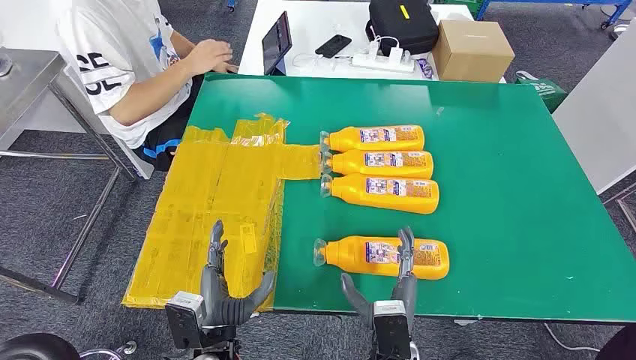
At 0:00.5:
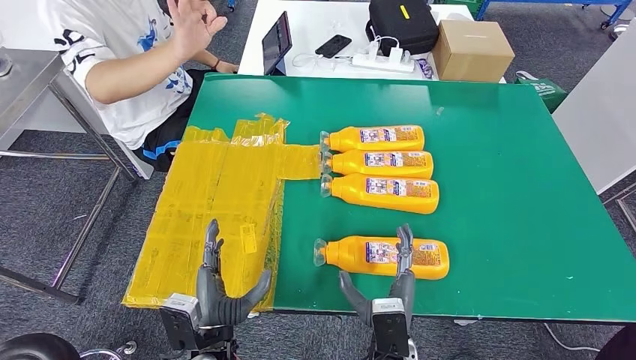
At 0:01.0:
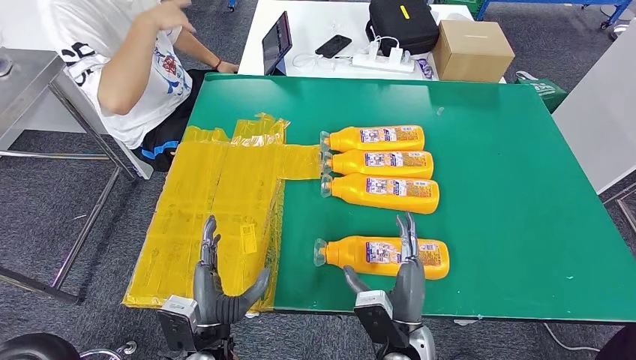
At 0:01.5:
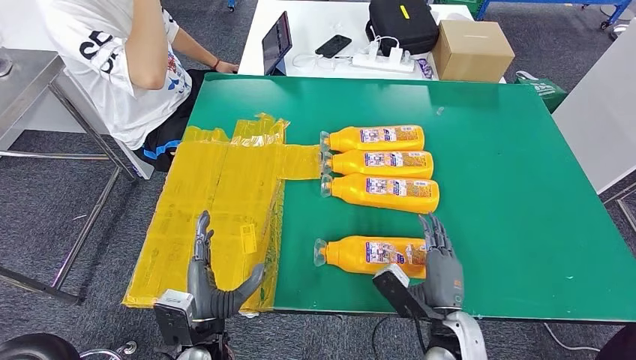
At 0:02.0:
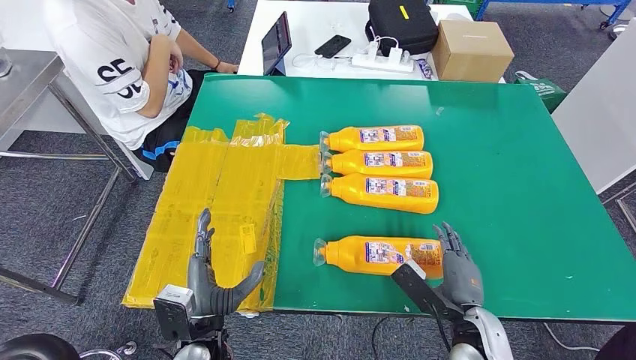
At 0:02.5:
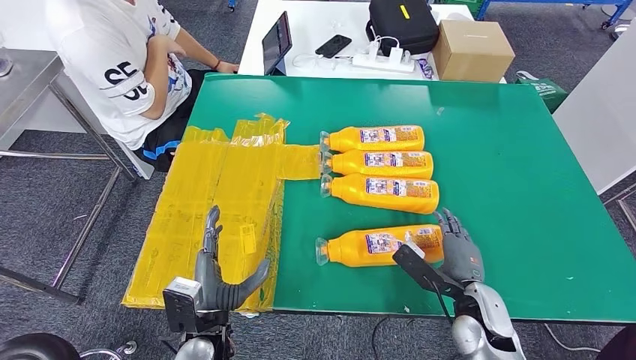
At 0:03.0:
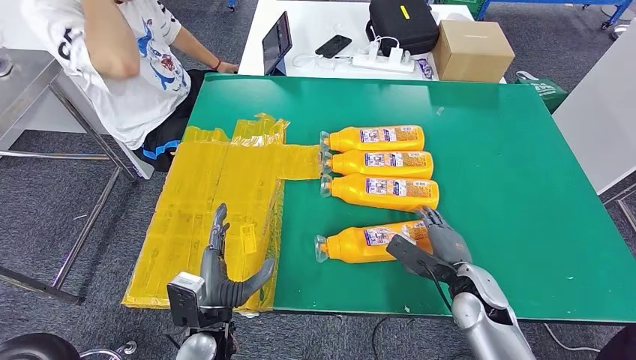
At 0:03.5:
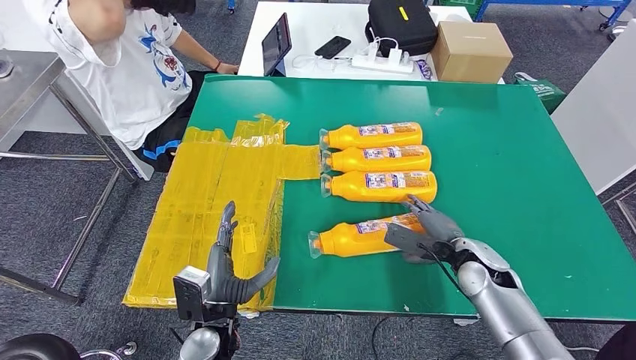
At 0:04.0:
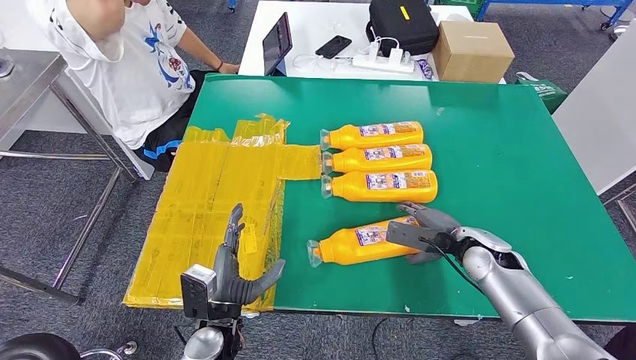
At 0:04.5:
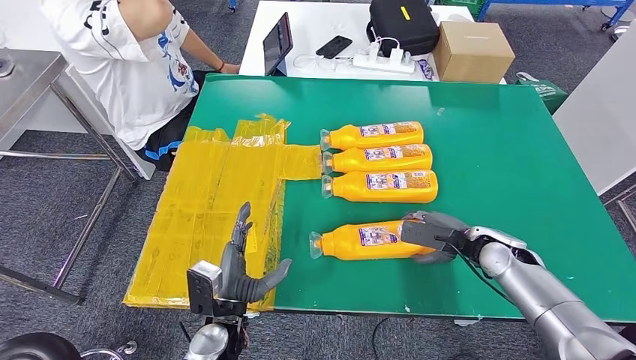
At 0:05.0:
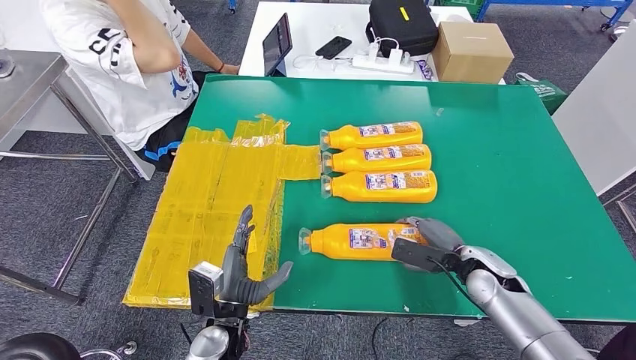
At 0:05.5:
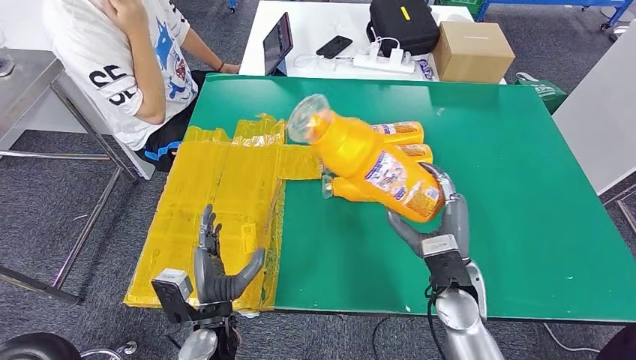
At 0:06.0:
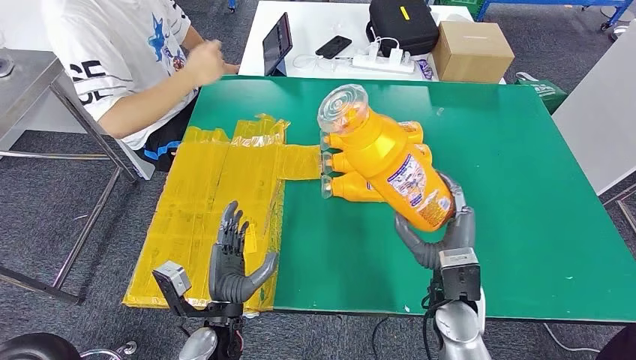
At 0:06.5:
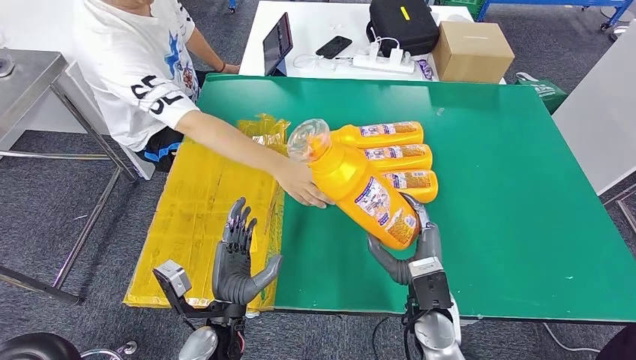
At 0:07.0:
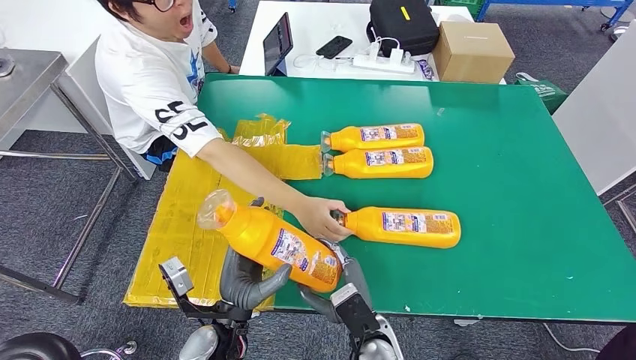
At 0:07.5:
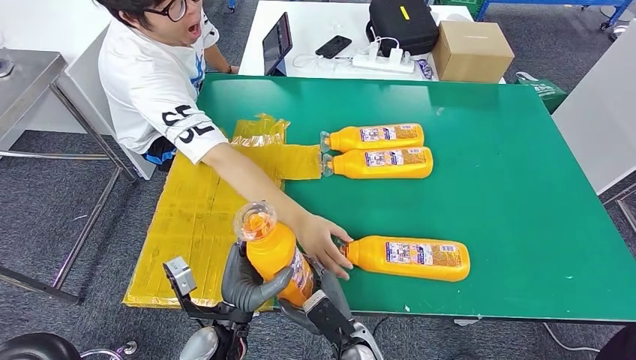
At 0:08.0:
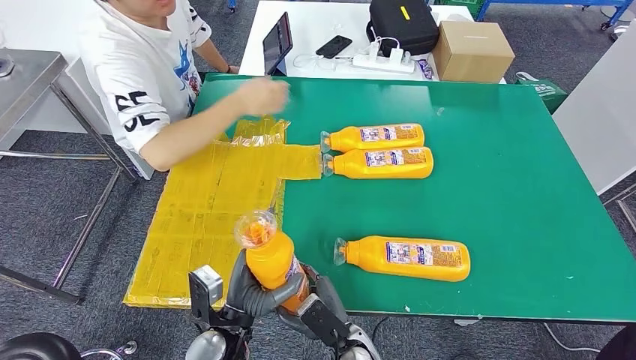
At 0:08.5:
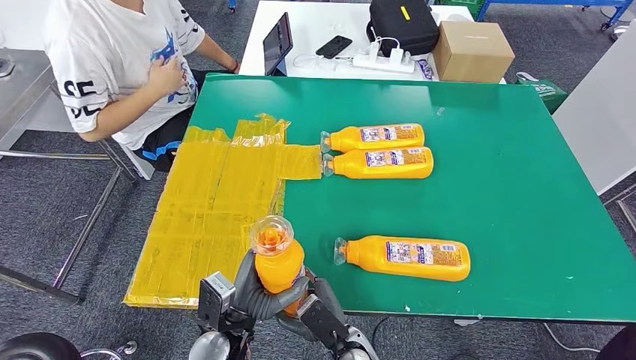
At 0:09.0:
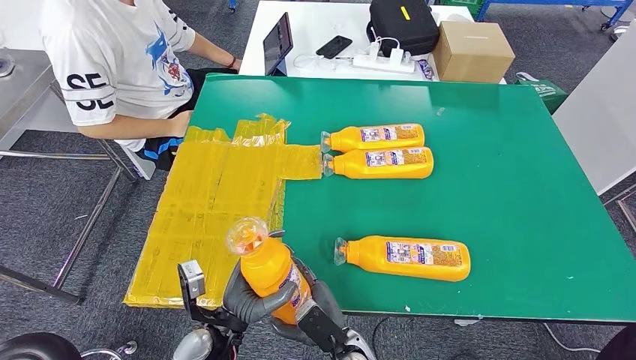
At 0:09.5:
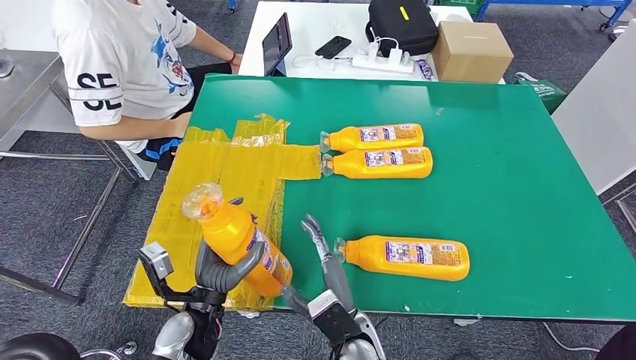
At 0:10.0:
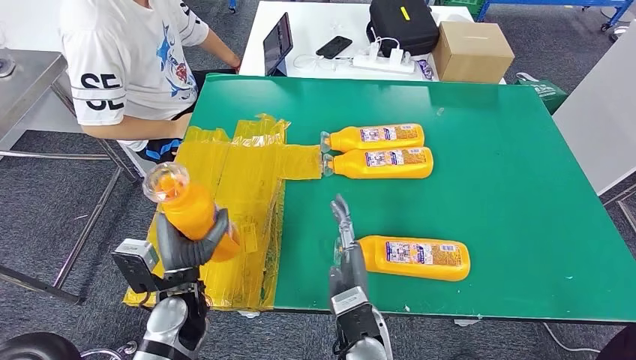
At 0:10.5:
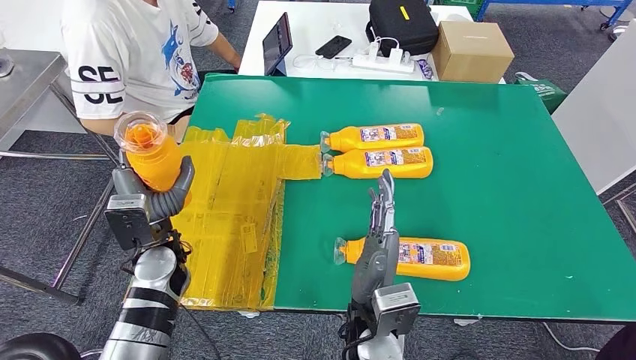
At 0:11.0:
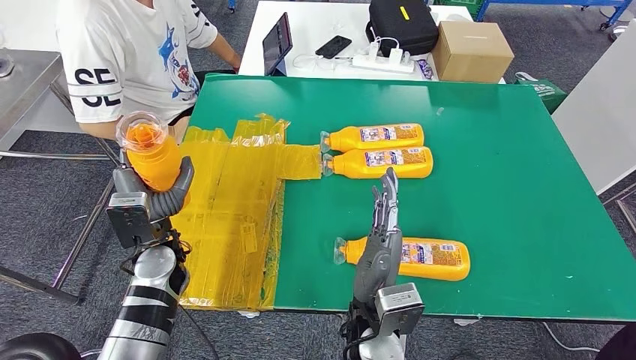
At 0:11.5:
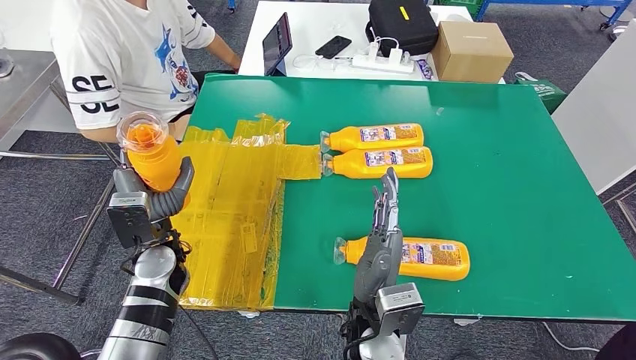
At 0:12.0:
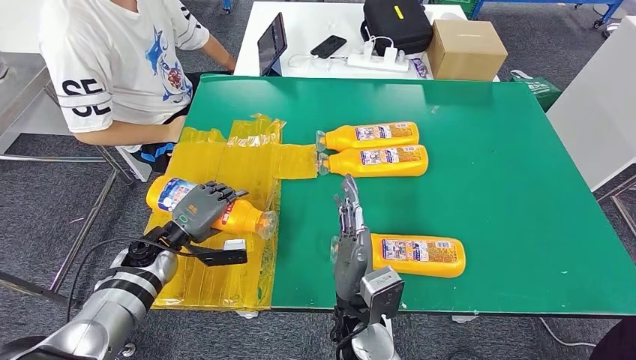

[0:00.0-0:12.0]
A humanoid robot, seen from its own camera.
Step, 0:00.0 to 0:05.5: Take the bottle from the table.
0:02.0 to 0:04.0: The right hand travels forward by about 15 cm.
0:04.0 to 0:06.0: The right hand heads to the left and backward, covering some 15 cm.
0:08.0 to 0:10.0: The left hand heads to the left and forward, covering about 10 cm, while the right hand goes approximately 10 cm upward.

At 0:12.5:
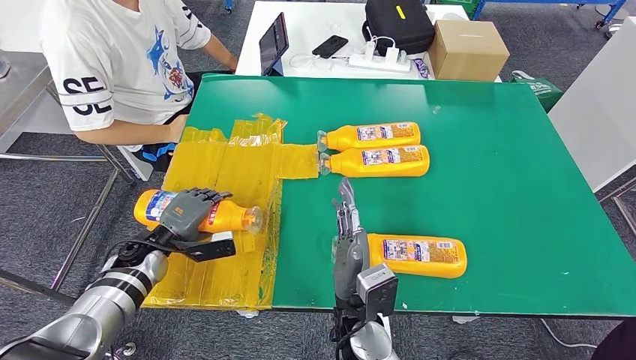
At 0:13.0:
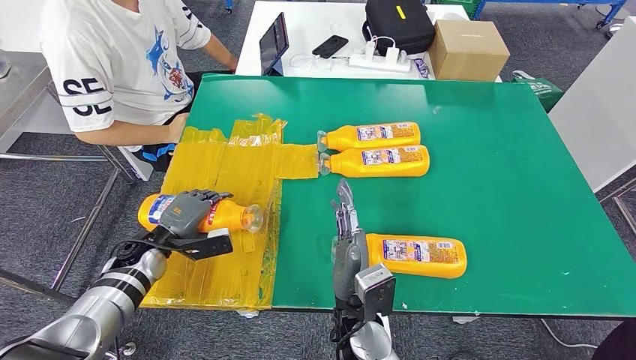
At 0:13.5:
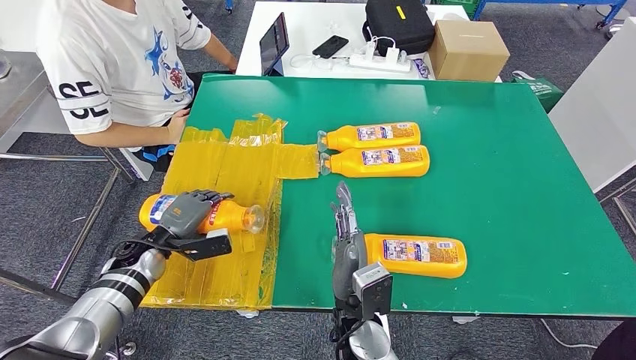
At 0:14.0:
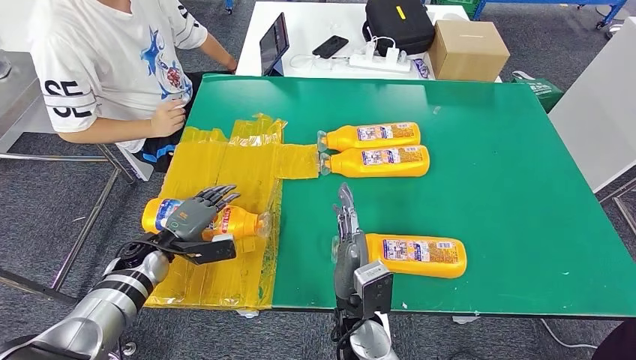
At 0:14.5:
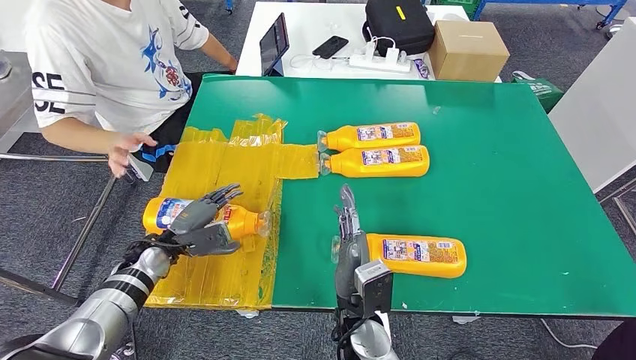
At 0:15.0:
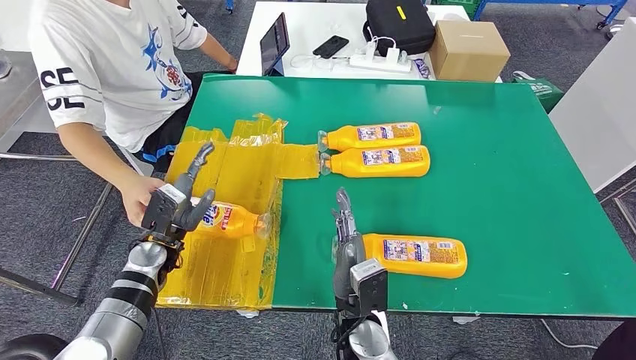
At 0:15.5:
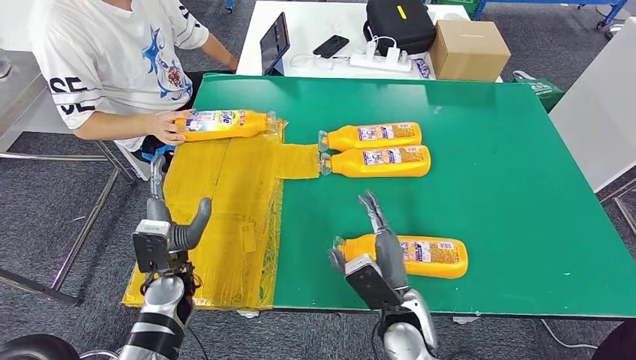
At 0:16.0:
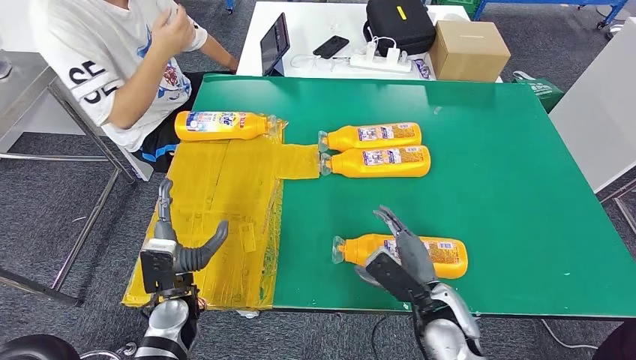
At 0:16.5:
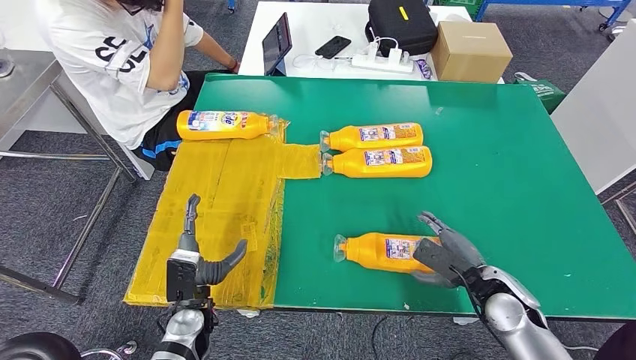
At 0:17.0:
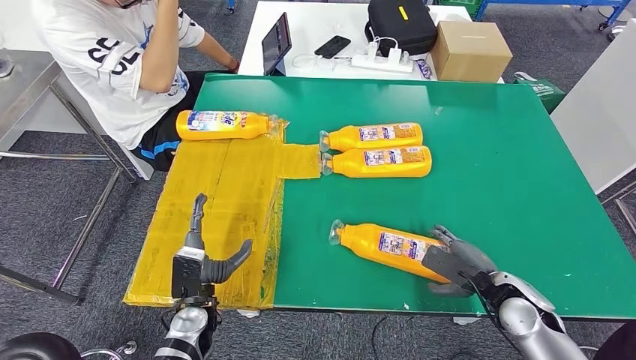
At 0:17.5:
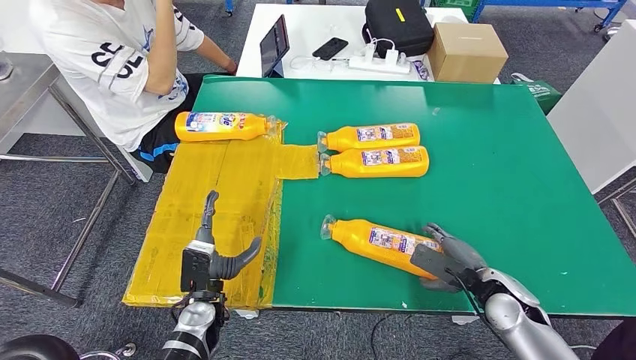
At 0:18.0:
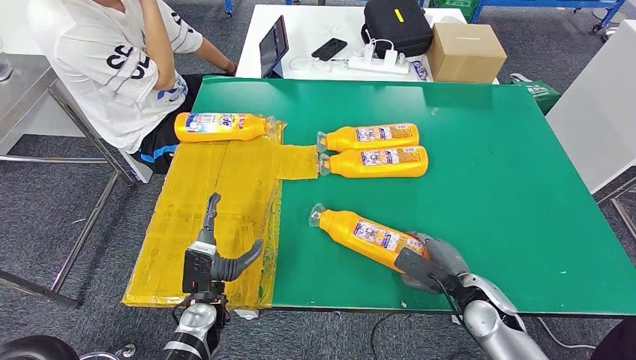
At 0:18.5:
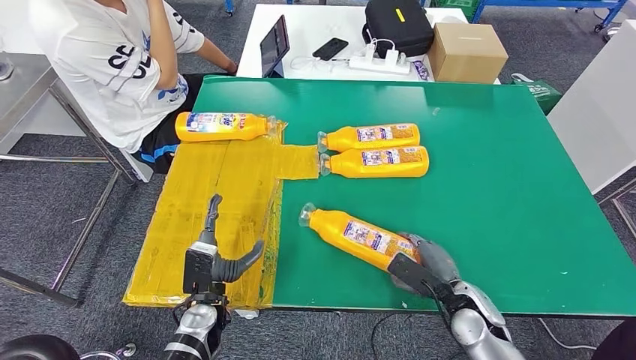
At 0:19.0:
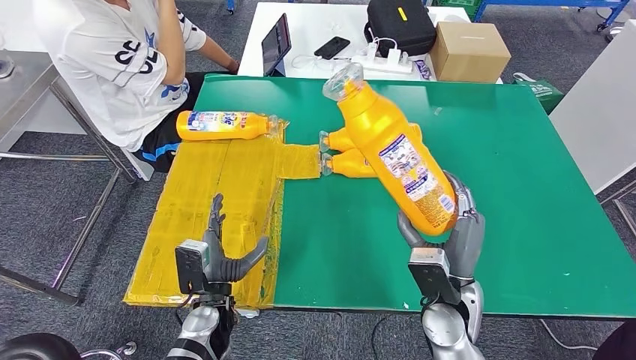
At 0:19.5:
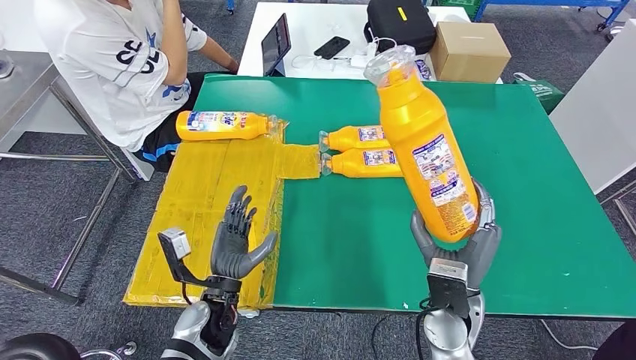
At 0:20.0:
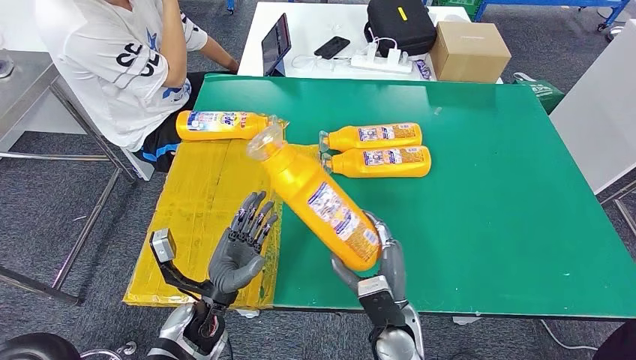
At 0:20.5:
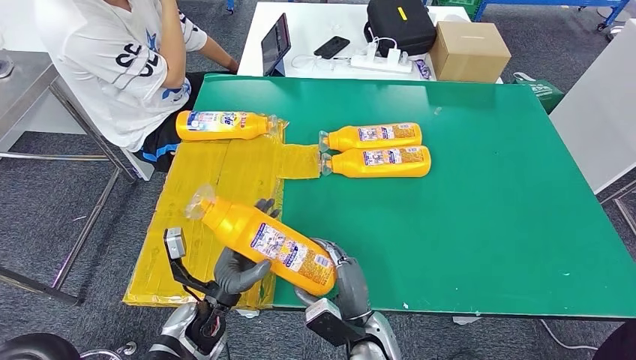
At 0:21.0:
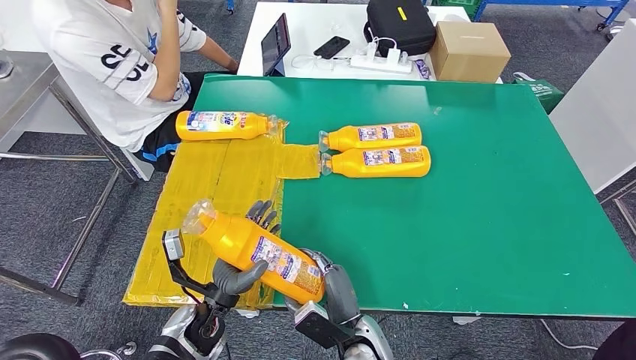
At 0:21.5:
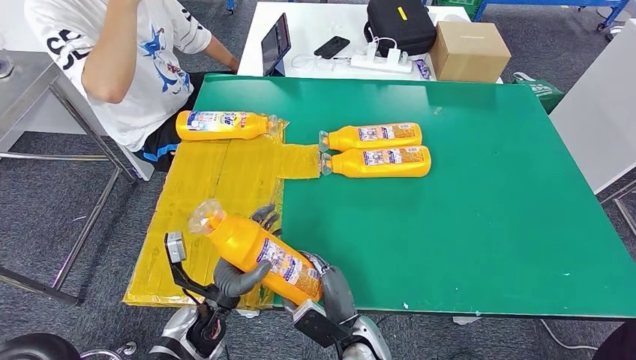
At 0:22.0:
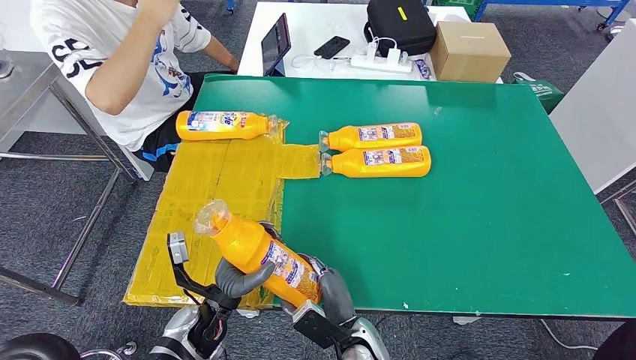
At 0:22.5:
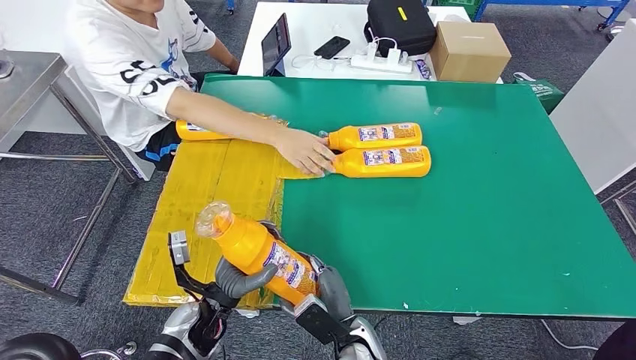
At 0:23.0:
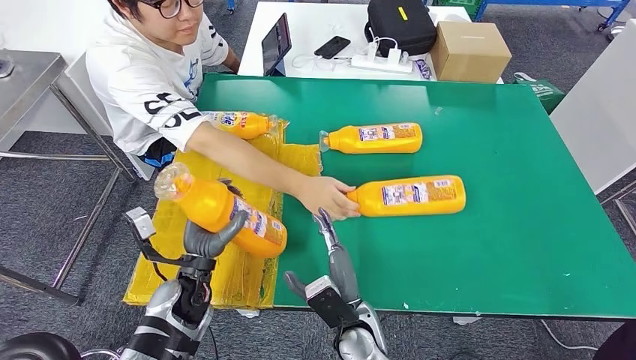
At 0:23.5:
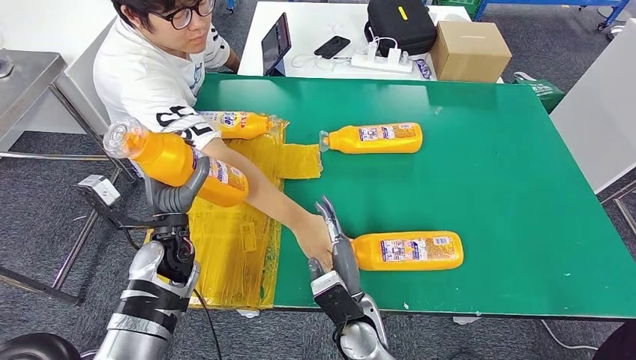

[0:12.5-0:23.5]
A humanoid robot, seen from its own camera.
Step, 0:13.5 to 0:19.0: Pick up the bottle from the table.
0:20.0 to 0:21.5: The right hand goes approximately 10 cm downward and to the left.
